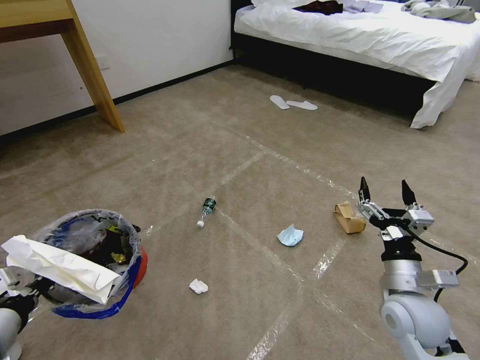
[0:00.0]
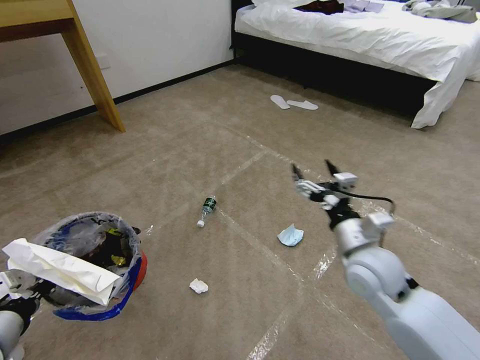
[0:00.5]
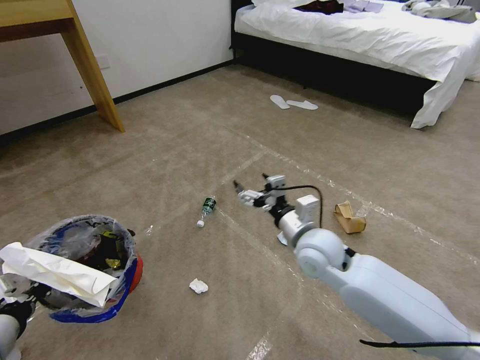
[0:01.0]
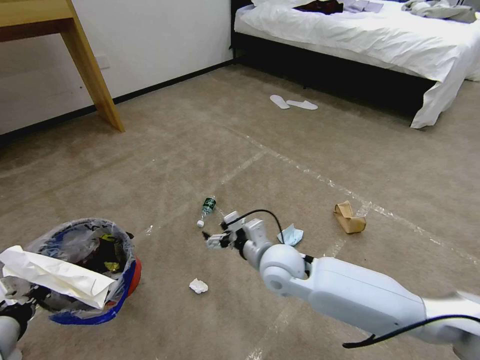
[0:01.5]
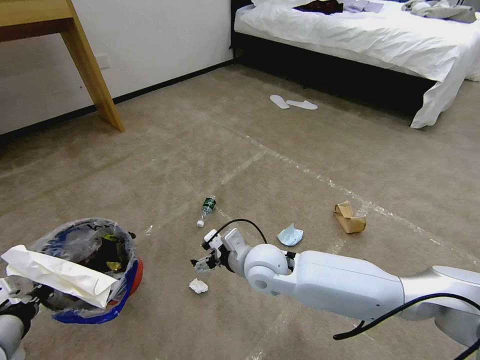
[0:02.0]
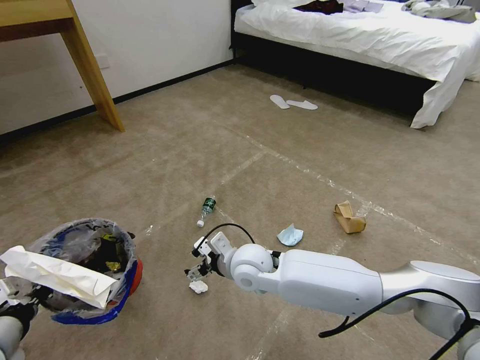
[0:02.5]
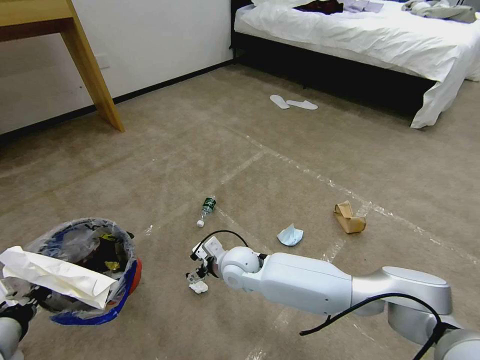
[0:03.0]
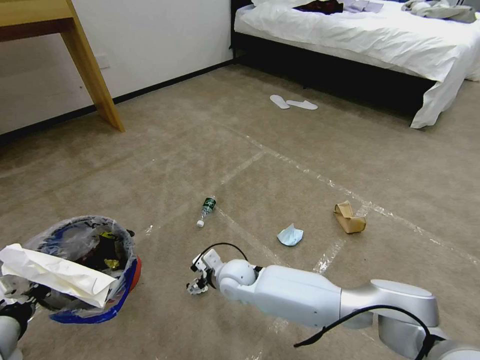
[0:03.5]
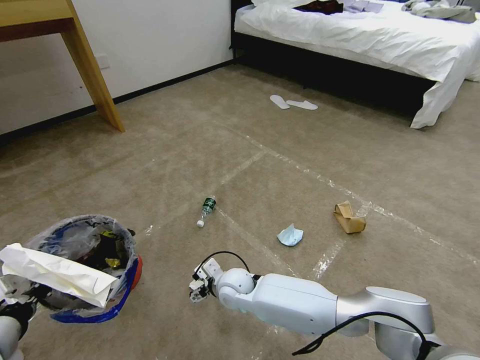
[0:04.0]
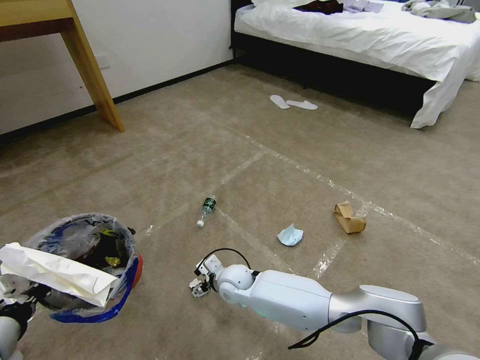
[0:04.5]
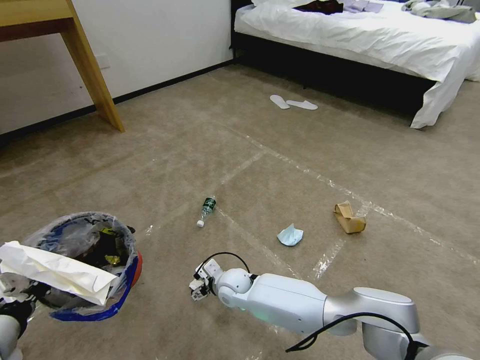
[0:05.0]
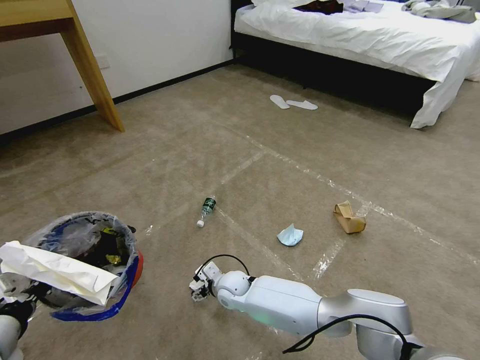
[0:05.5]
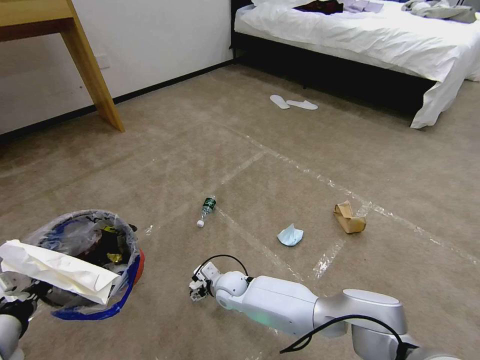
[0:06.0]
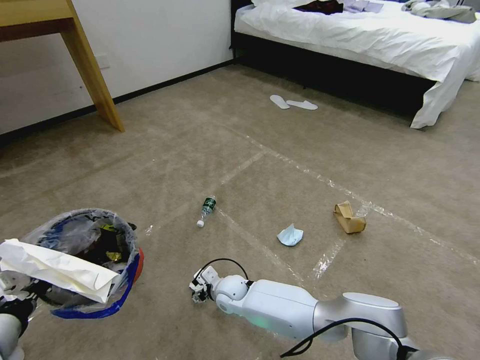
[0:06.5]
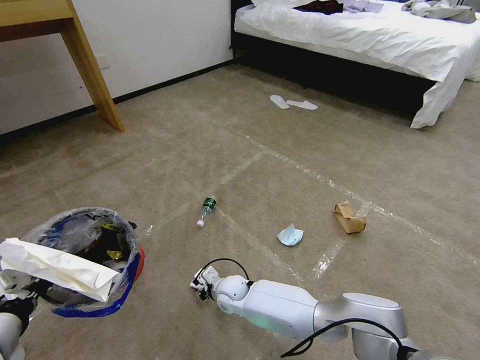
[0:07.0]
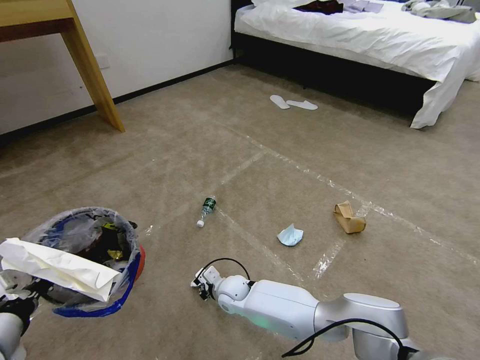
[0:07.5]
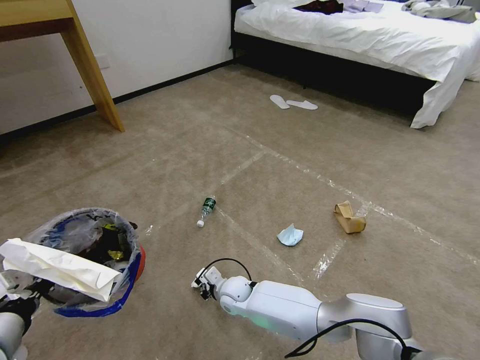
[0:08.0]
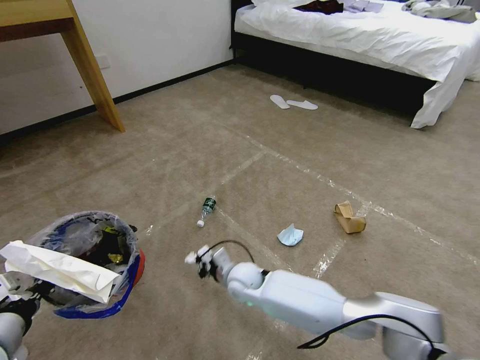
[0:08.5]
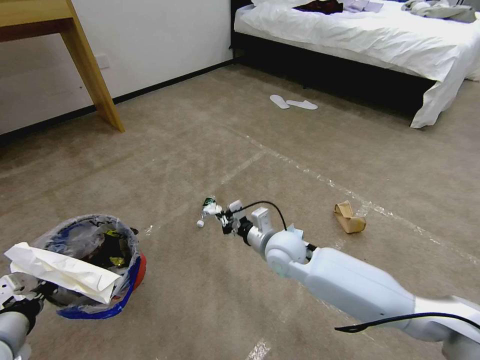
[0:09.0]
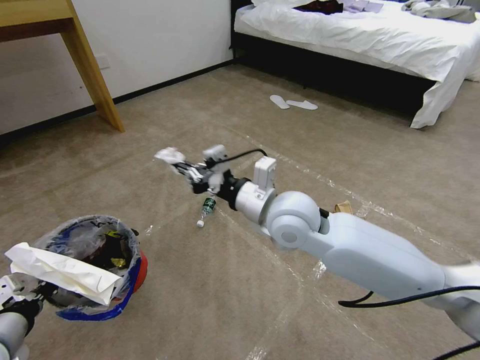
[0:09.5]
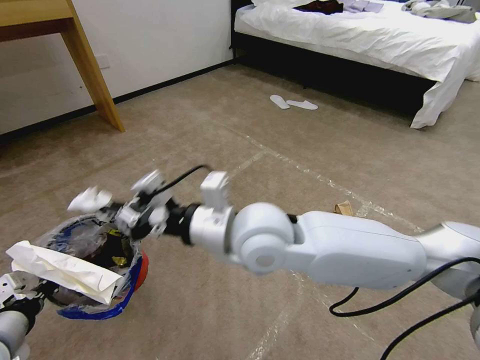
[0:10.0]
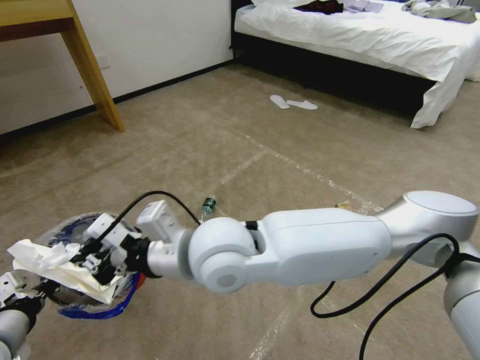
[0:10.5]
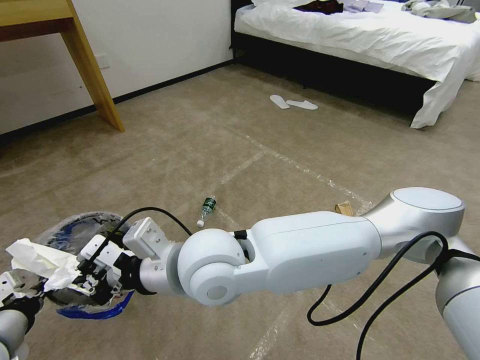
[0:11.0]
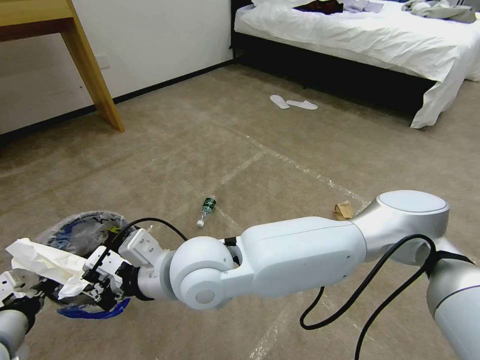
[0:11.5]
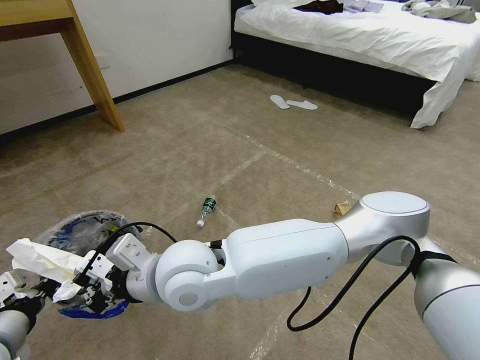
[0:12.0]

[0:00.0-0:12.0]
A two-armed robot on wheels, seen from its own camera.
Task of the whole recording: Pick up the trash bin and place the garbage on the floor into it.
0:00.0 to 0:02.0: The right gripper travels to the left by about 25 cm.
0:02.0 to 0:04.0: The right gripper heads downward and to the left, covering approximately 15 cm.
0:04.0 to 0:06.0: The right gripper heads downward, covering approximately 5 cm.
0:06.0 to 0:08.0: The right gripper closes.
0:08.0 to 0:10.0: The right gripper is displaced upward by some 40 cm.
0:10.0 to 0:12.0: The right gripper is displaced to the left by about 10 cm.

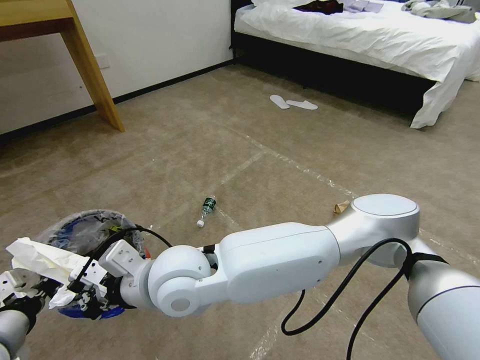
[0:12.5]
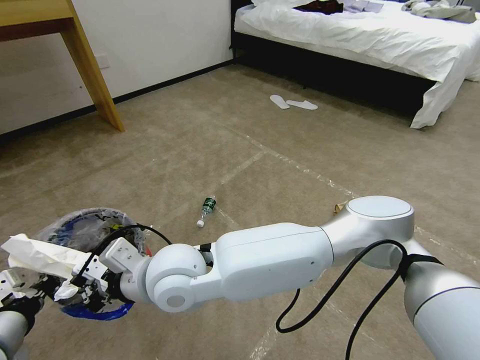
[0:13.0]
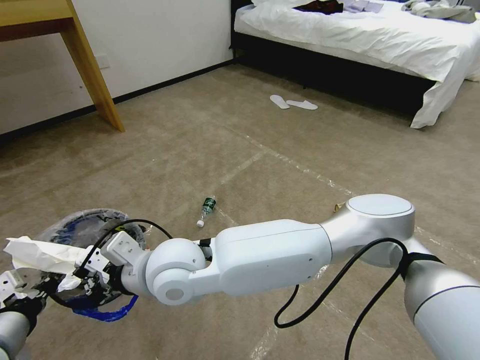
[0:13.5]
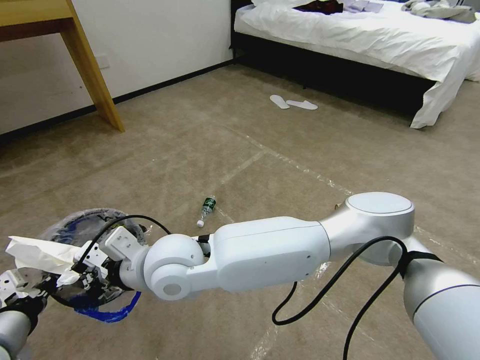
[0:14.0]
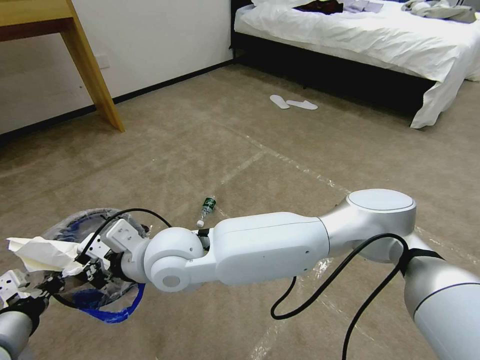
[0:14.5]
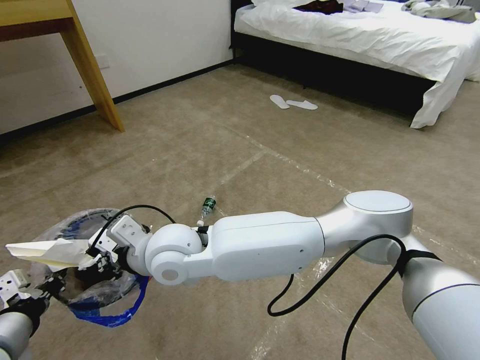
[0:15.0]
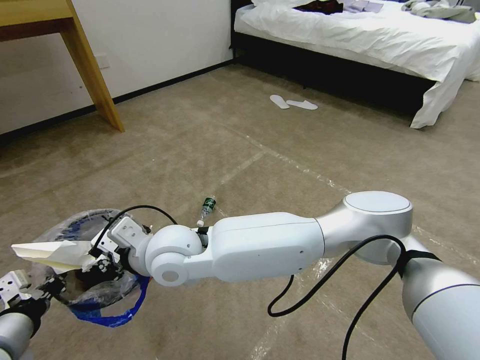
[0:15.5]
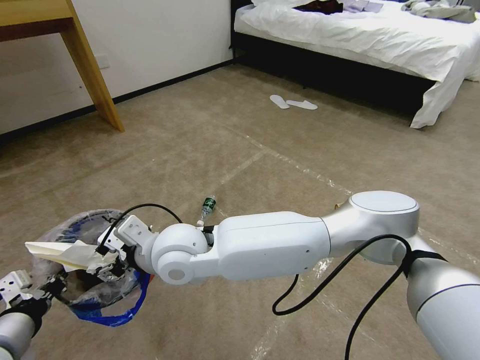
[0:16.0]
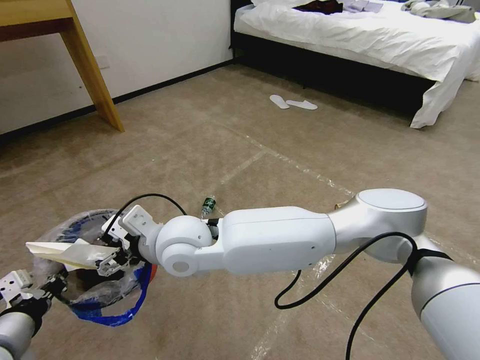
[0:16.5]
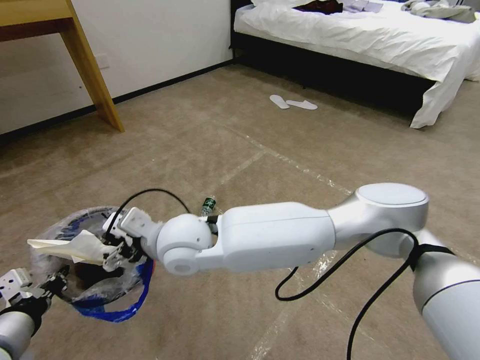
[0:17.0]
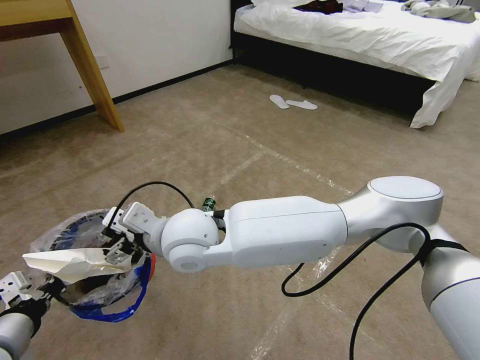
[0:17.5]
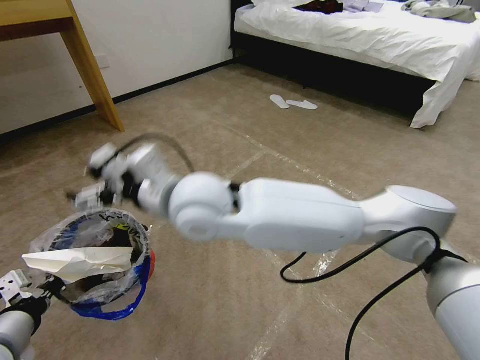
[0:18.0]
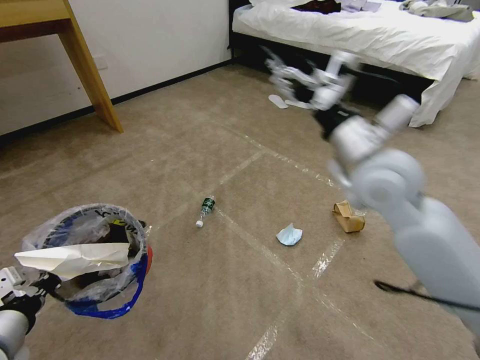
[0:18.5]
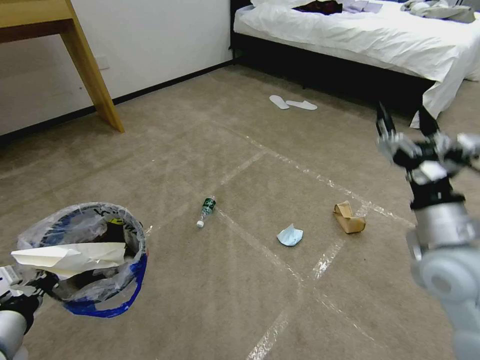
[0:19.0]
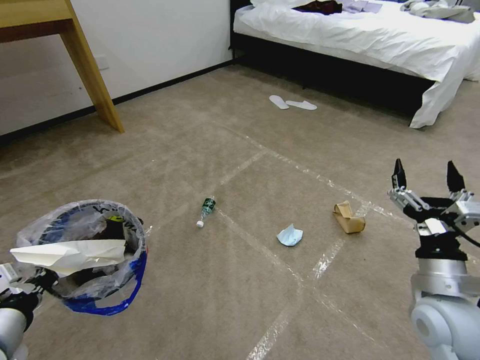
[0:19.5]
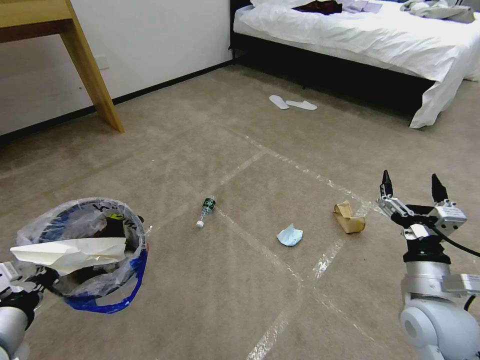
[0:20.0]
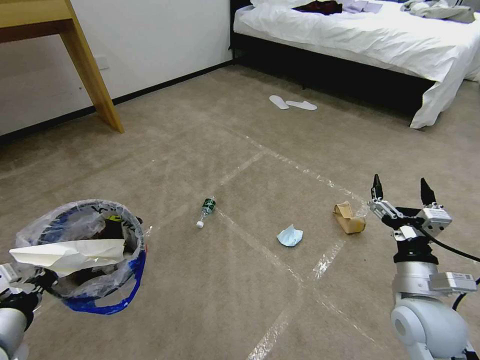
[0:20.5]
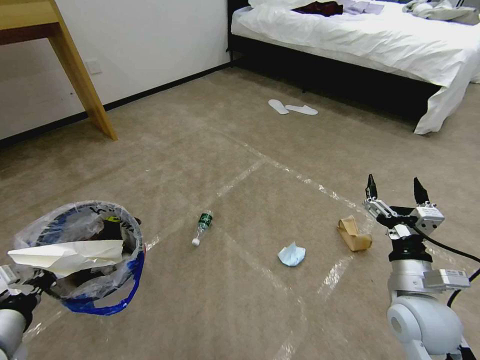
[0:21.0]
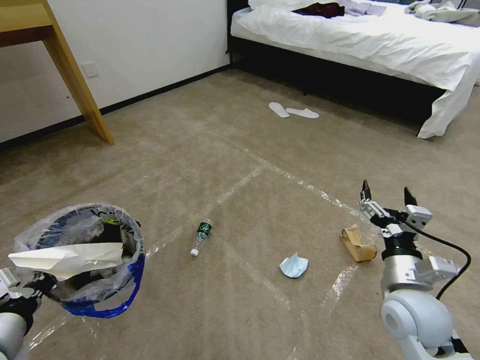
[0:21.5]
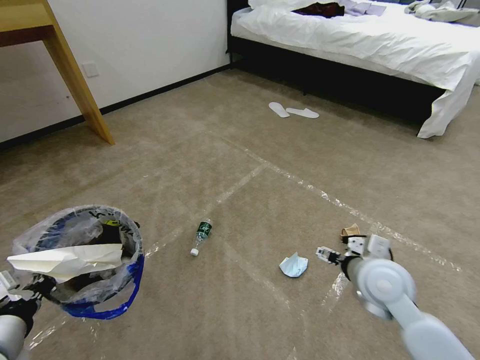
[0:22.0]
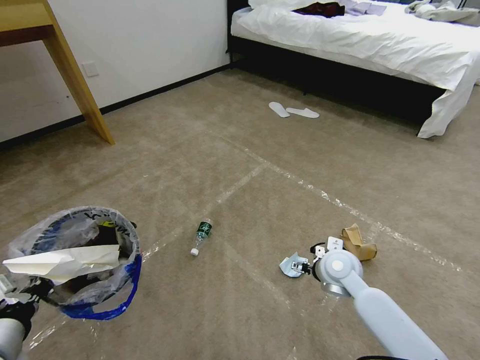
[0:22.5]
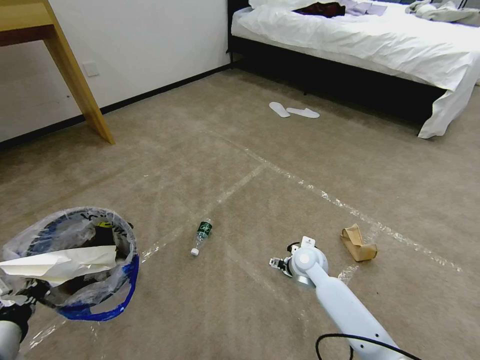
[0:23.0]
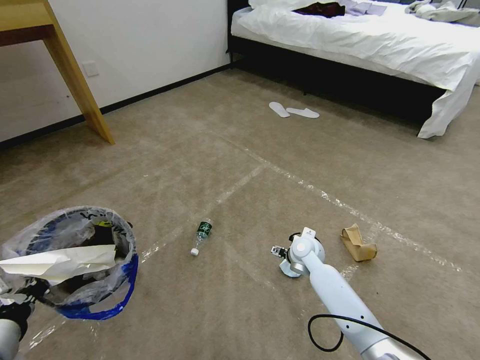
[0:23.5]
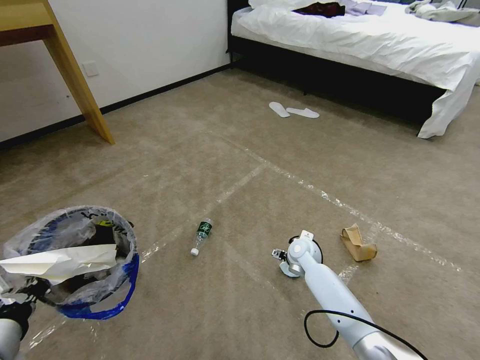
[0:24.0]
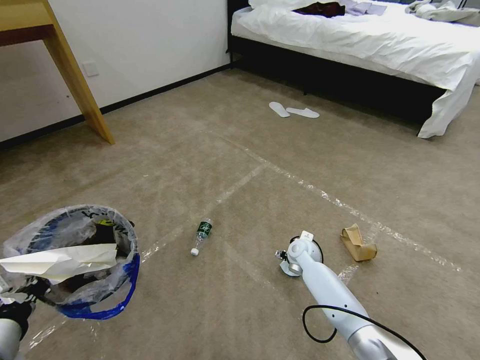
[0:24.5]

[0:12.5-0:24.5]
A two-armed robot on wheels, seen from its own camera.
Task of the whole recording: Pick up the trash bin and place the garbage on the floor into it.
0:12.5 to 0:14.5: The grippers move only a little.
0:14.5 to 0:16.5: The right gripper opens its fingers.
0:16.5 to 0:18.5: The right gripper goes approximately 35 cm to the right.
0:18.5 to 0:20.5: The right gripper is displaced downward, backward and to the right by roughly 25 cm.
0:20.5 to 0:22.5: The right gripper travels forward, to the left and downward by about 20 cm.
0:22.5 to 0:24.5: The right gripper travels downward and forward by roughly 15 cm.

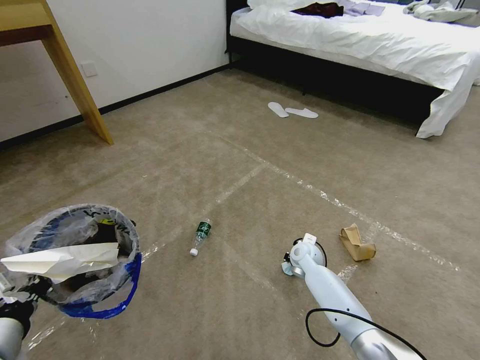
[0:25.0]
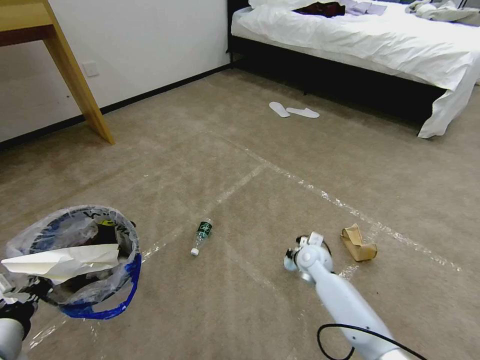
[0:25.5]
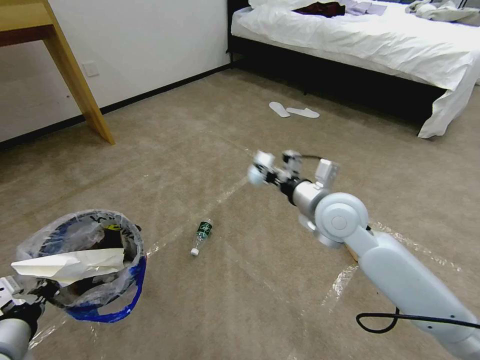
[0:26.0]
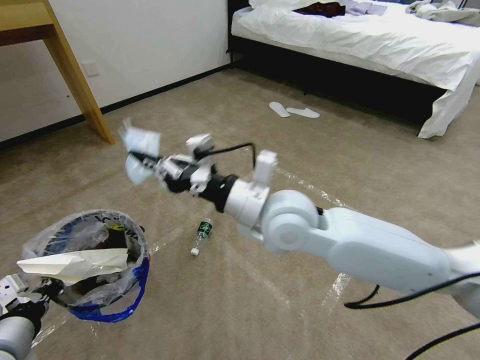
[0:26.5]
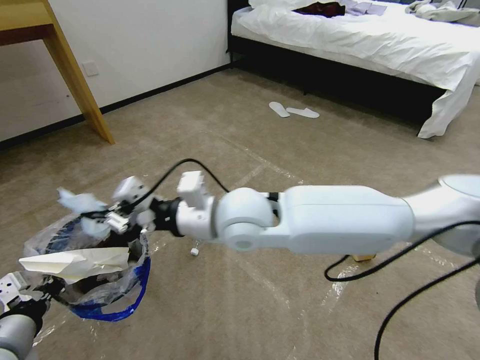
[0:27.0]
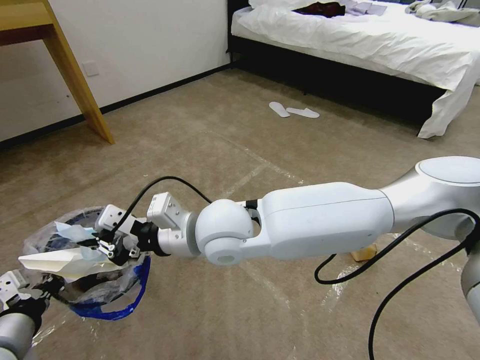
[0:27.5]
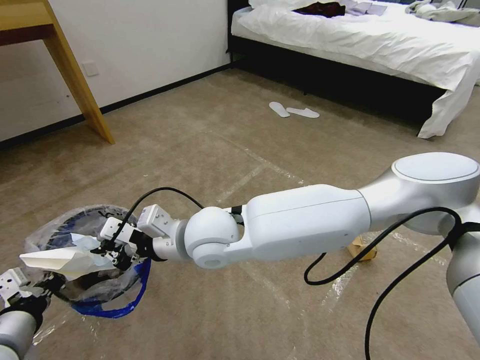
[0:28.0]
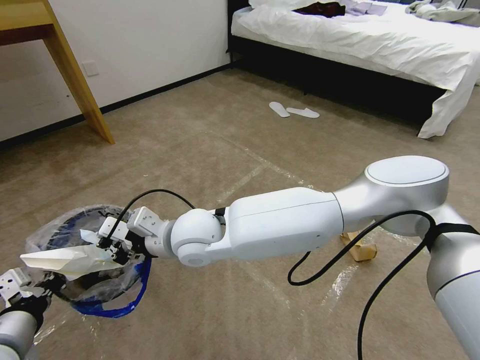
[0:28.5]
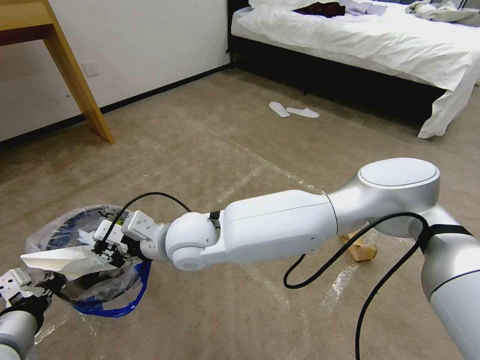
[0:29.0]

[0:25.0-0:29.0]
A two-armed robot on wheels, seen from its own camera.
Task of the whole recording: Pick up the trash bin and place the garbage on the floor into it.
0:25.0 to 0:27.0: The right gripper heads upward and to the left, covering approximately 40 cm.
0:27.0 to 0:29.0: The right gripper is displaced to the left and downward by roughly 10 cm.
